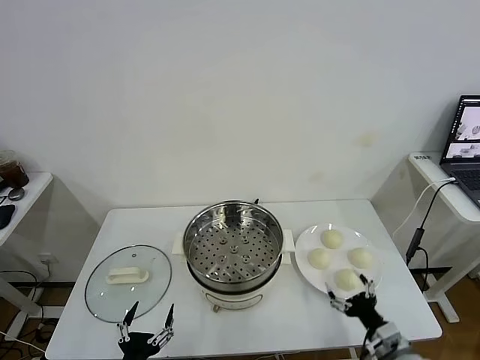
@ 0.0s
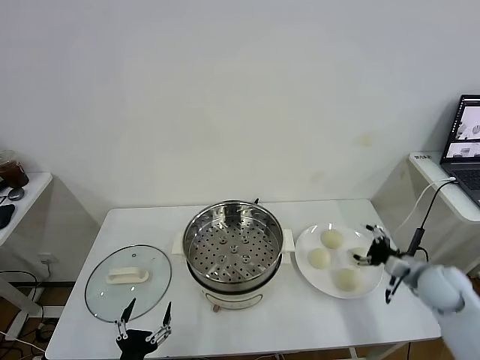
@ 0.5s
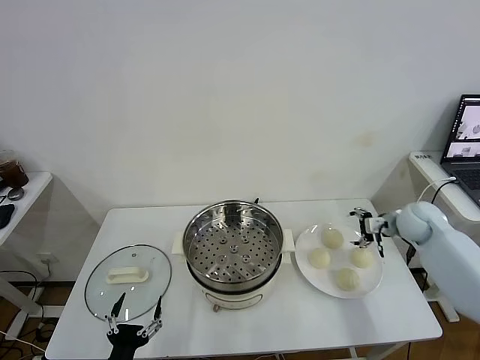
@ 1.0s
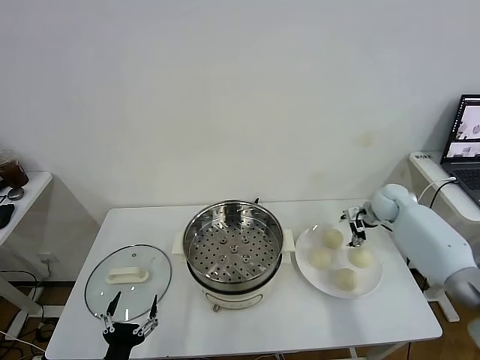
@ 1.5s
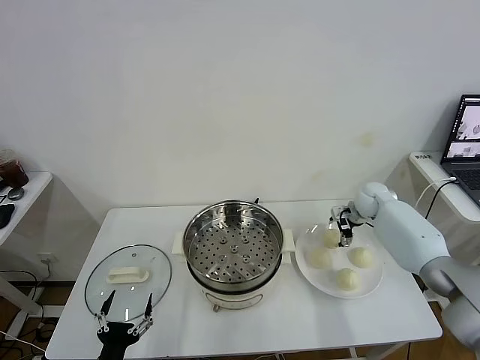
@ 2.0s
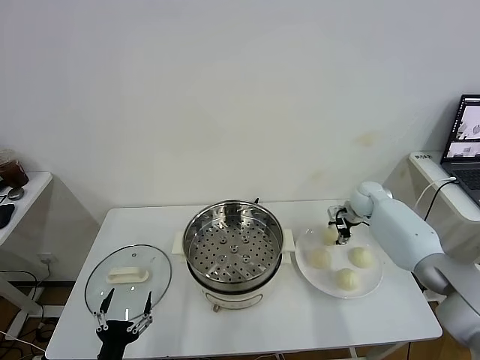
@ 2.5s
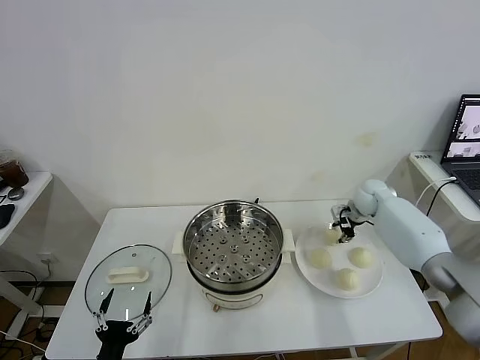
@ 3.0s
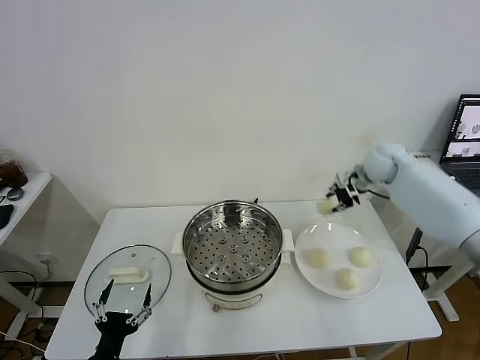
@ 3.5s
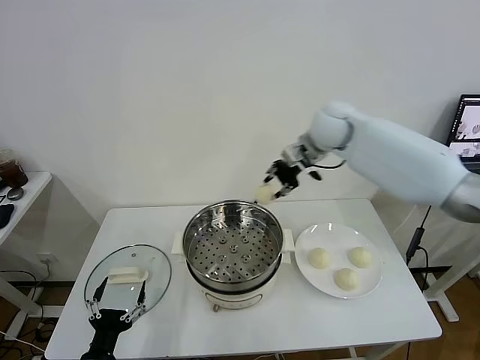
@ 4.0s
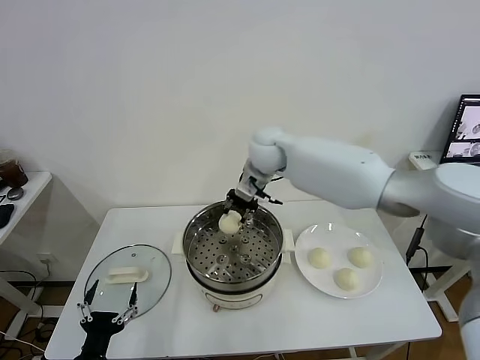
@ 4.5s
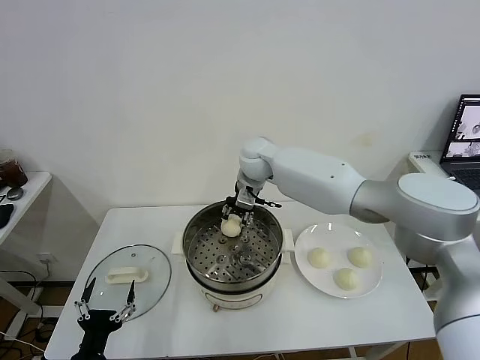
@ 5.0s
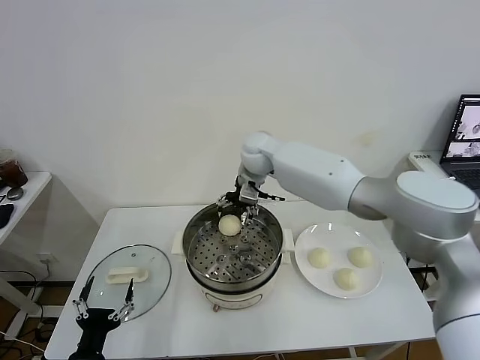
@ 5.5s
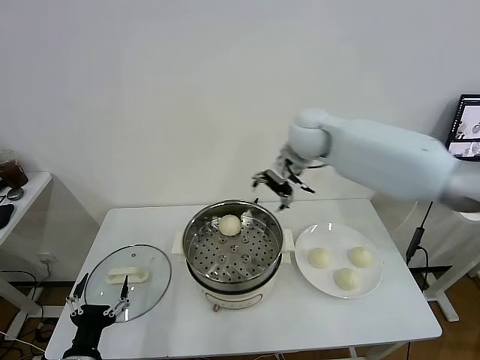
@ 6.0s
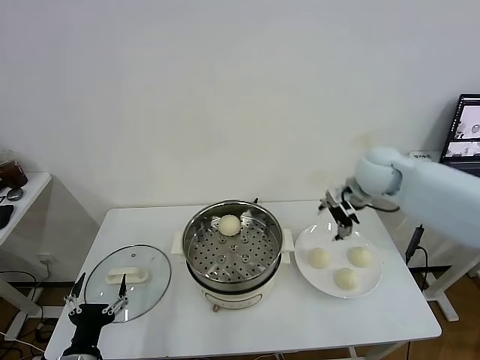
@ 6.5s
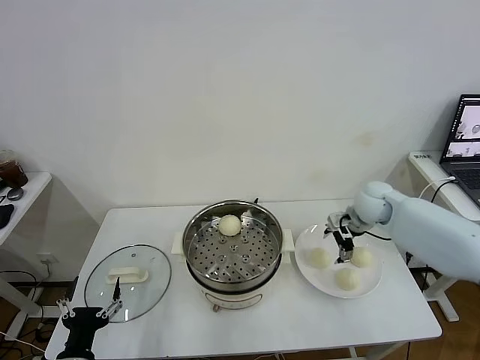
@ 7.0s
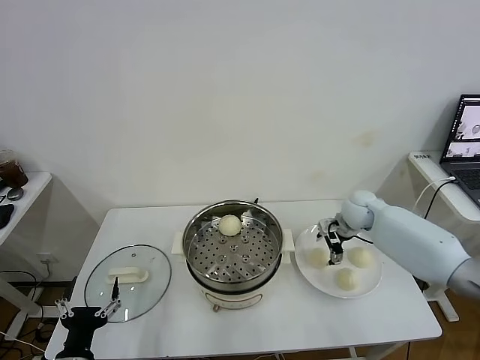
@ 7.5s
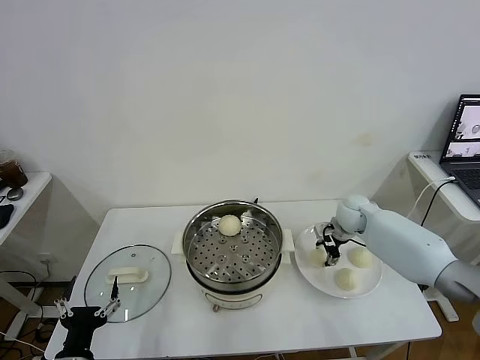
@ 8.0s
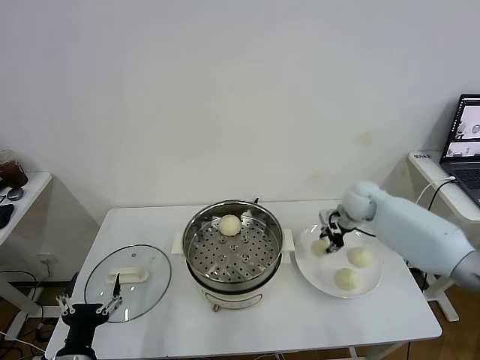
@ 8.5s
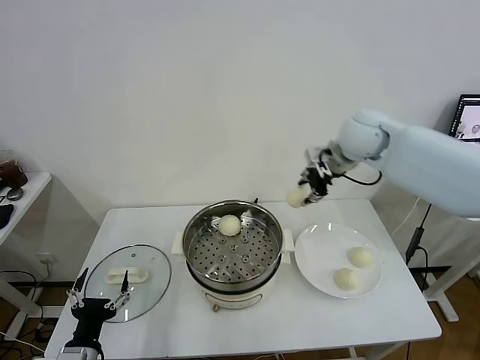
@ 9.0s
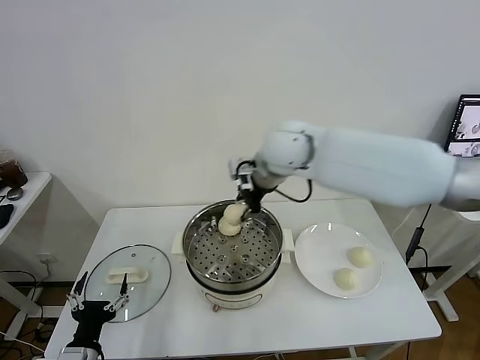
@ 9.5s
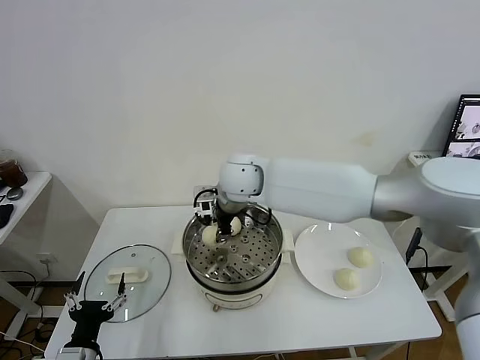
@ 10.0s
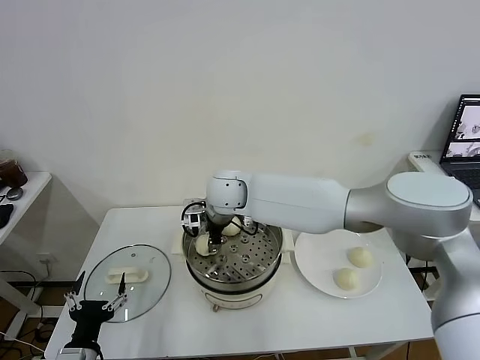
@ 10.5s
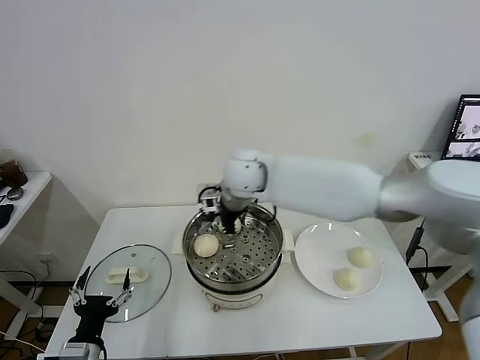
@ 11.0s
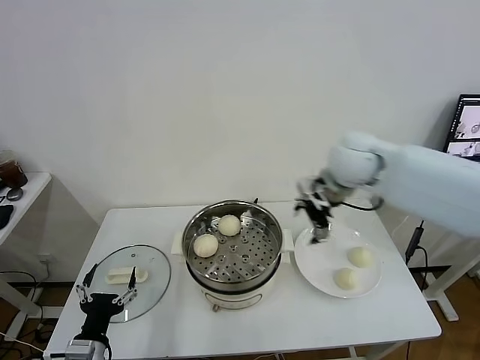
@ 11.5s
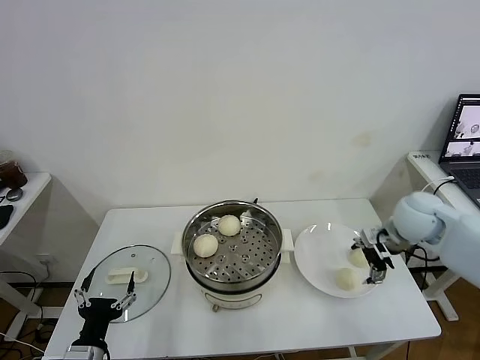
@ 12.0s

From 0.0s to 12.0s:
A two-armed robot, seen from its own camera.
Task of the whole recording: take steamed baozi put them in steamer.
Step, from 0.0s to 2.5s: Grasp the baozi in the plate with right gripper.
Step, from 3.0s to 5.0s: Place the baozi on the steamer with right gripper.
Step, from 6.0s to 8.0s: Grasp the baozi in the plate with right gripper.
Step, from 8.5s to 10.5s: Place the baozi on the steamer with right gripper.
From 2.0s to 4.0s: The right gripper shifts about 30 cm upward and to the left, and closes its fingers.
From 4.0s to 6.0s: The right gripper heads to the right, covering some 5 cm, and opens its fingers.
From 6.0s to 8.0s: The right gripper moves downward and to the right, roughly 25 cm, and closes.
From 8.0s to 10.0s: The right gripper moves to the left and upward, approximately 35 cm.
From 10.0s to 12.0s: The right gripper heads to the right, covering about 40 cm, and opens.

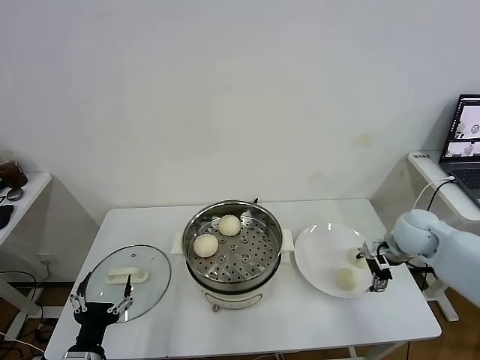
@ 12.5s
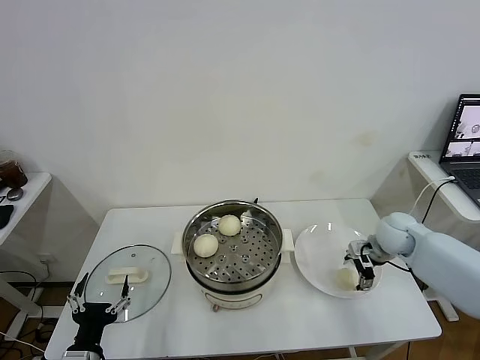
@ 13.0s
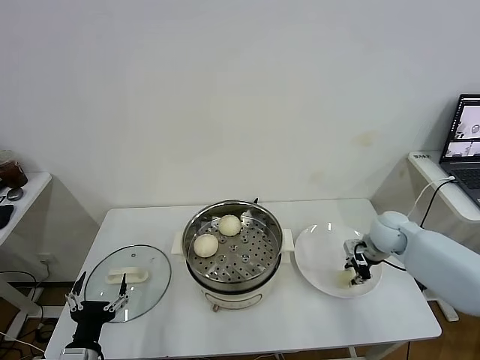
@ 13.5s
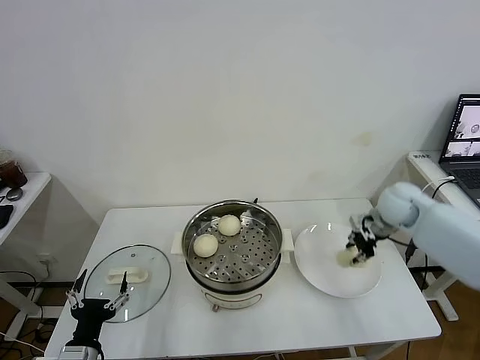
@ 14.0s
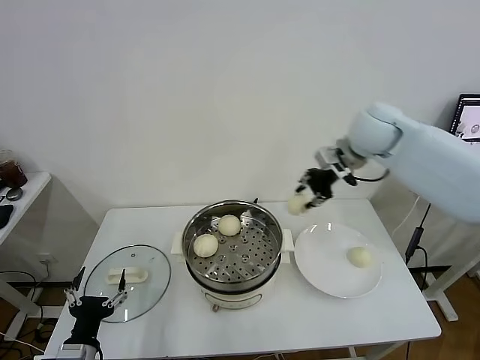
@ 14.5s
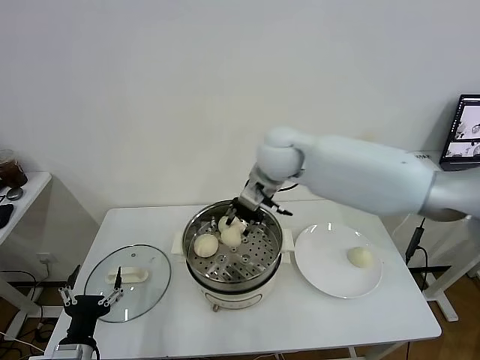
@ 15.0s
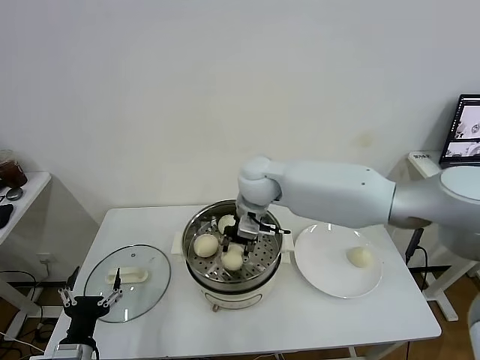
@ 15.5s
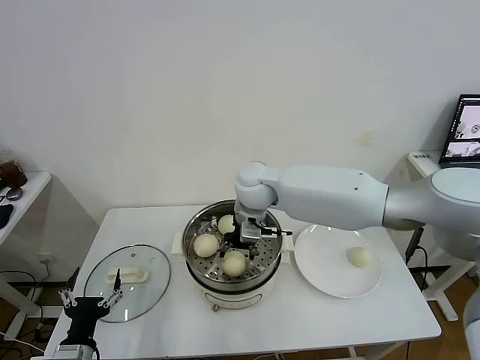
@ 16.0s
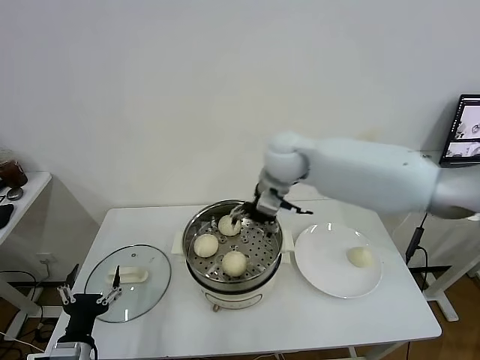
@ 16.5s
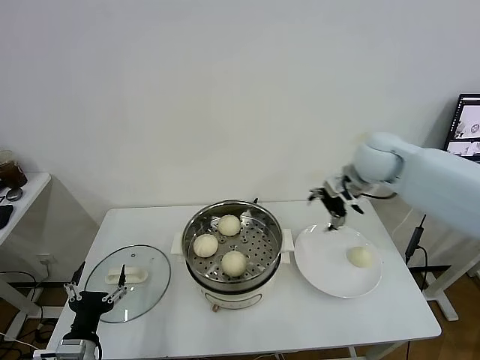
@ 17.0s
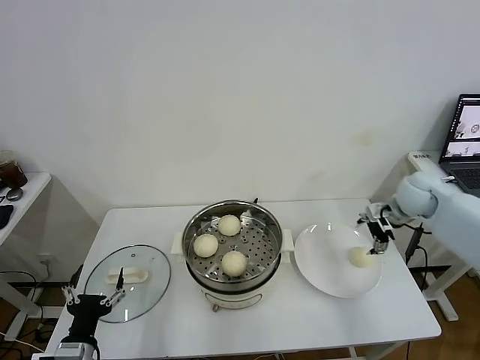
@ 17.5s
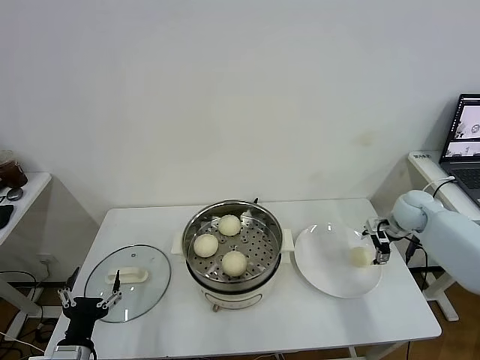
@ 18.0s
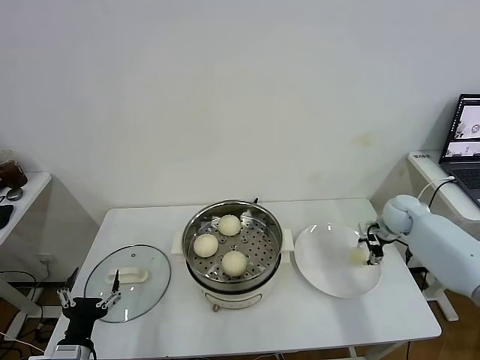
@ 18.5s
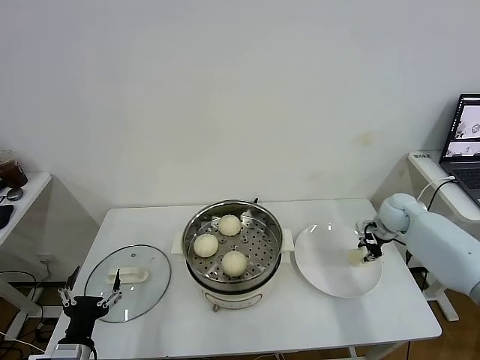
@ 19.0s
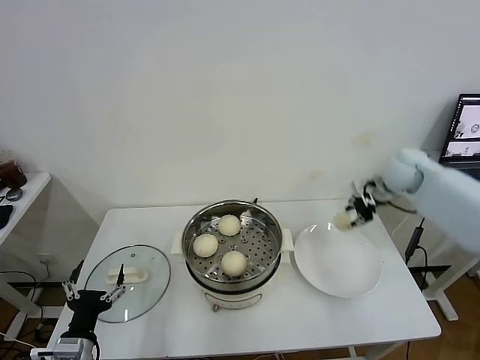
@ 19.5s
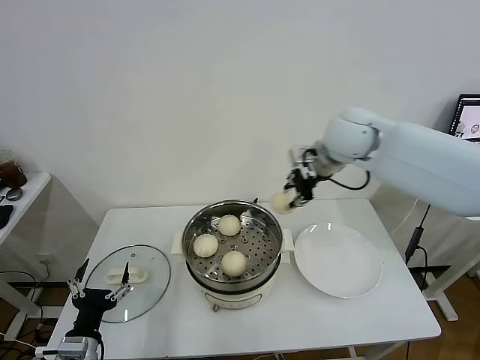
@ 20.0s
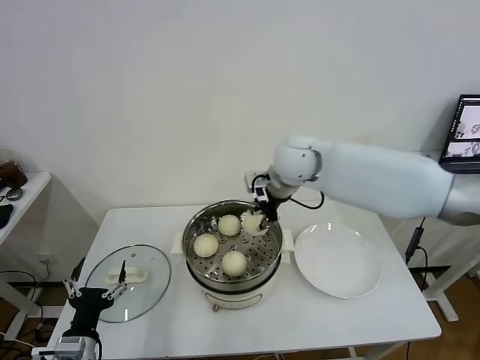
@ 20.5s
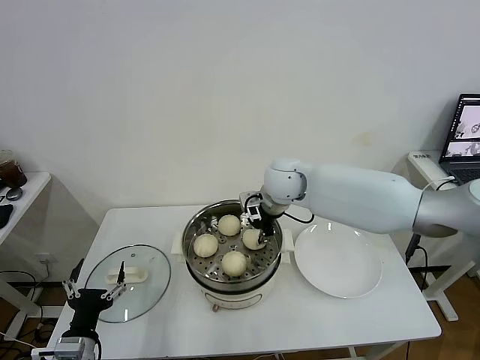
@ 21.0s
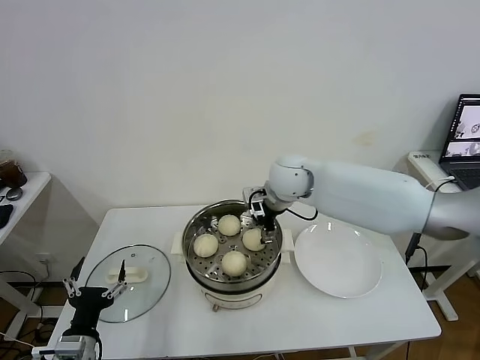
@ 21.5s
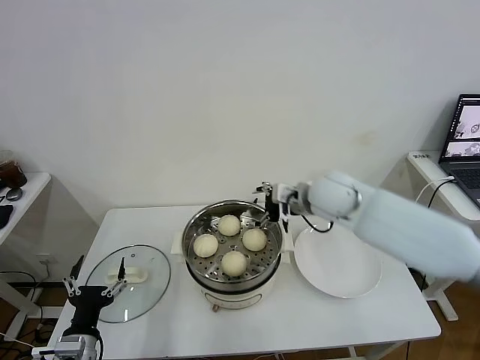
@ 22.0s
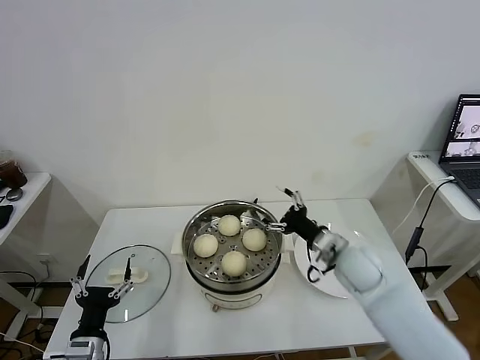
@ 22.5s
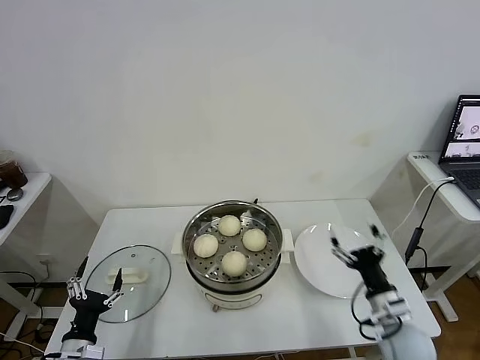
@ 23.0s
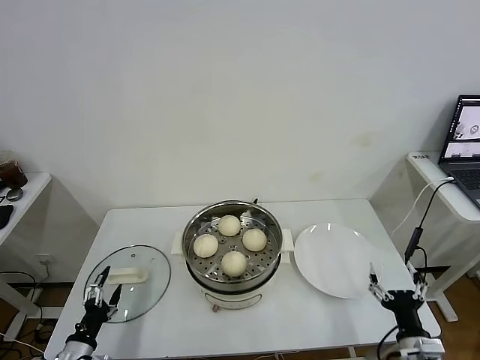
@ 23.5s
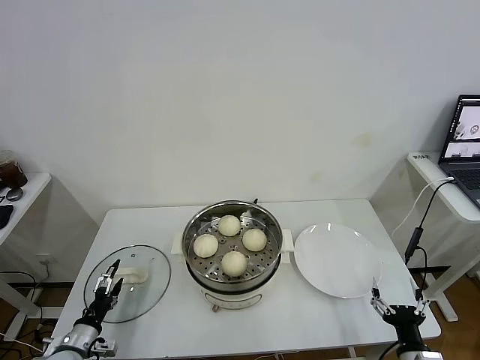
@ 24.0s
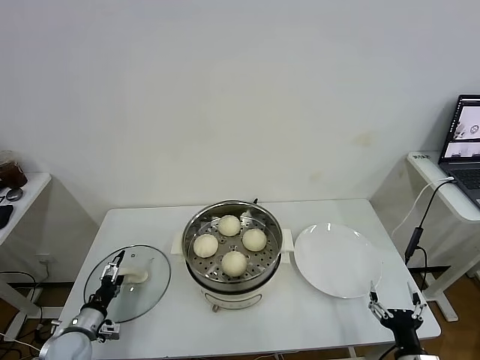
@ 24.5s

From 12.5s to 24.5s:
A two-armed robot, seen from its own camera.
Task of the whole recording: take steamed baozi put them in steamer.
Step, from 14.0s to 16.0s: Place the baozi on the steamer with right gripper.
Step, from 16.5s to 19.0s: Grasp the baozi in the plate with right gripper.
Step, from 19.5s to 21.5s: Place the baozi on the steamer with right gripper.
From 12.5s to 14.5s: The right gripper is displaced upward and to the left by about 30 cm, and closes.
From 14.5s to 16.5s: The right gripper heads to the left, covering roughly 10 cm, and opens up.
From 16.5s to 18.5s: The right gripper is displaced to the right and downward by roughly 35 cm, and closes up.
From 18.5s to 20.5s: The right gripper heads to the left and upward, covering roughly 35 cm, and closes its fingers.
From 20.5s to 22.5s: The right gripper heads downward, to the right and backward, covering some 25 cm, and opens.
From 22.5s to 24.5s: The left gripper is displaced to the left, forward and downward by some 15 cm; the right gripper goes roughly 30 cm backward, downward and to the right.

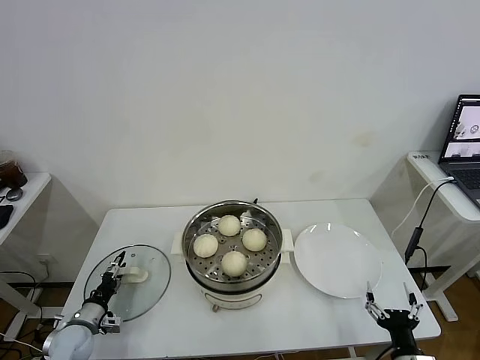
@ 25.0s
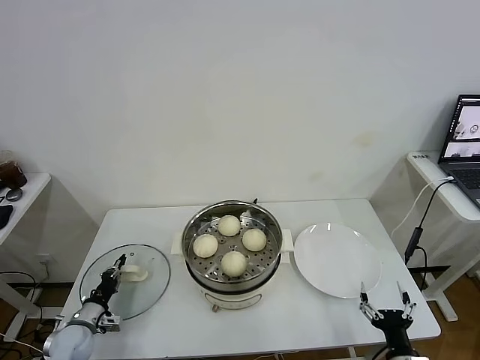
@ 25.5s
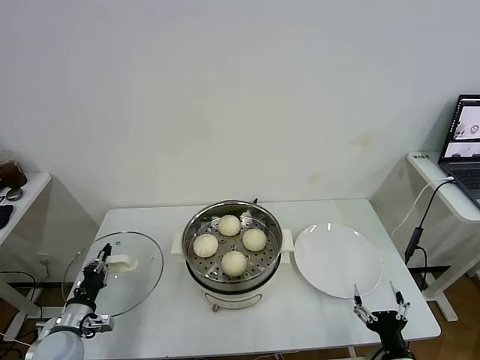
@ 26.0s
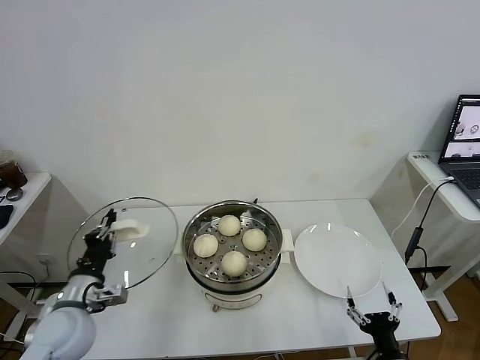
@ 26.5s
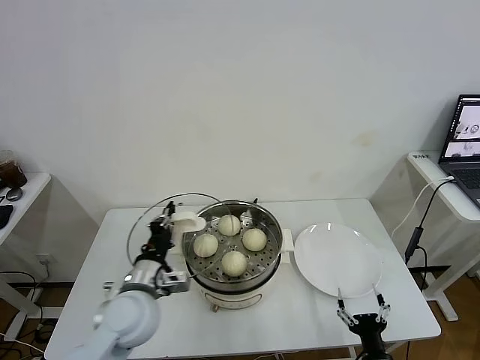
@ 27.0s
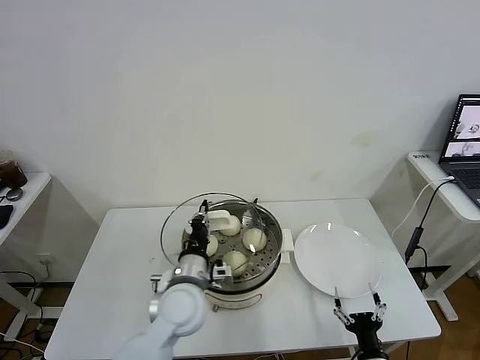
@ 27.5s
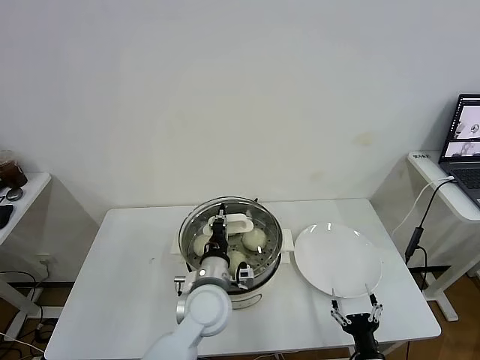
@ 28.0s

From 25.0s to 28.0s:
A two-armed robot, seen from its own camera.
Task of the whole recording: take steamed baozi put them in steamer.
From 25.0s to 26.5s: The left gripper travels upward and to the right by roughly 20 cm, and closes its fingers.
From 26.5s to 28.0s: The left gripper goes about 25 cm to the right, while the right gripper ends up some 5 cm from where it was.
